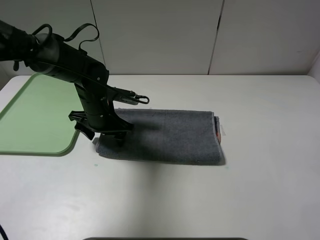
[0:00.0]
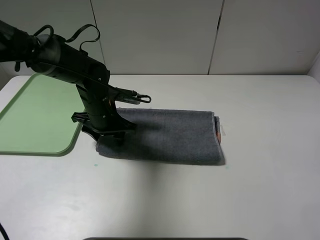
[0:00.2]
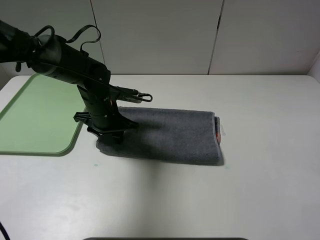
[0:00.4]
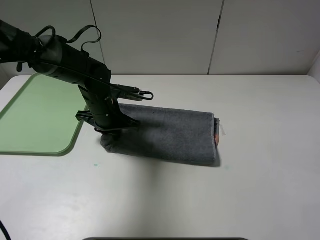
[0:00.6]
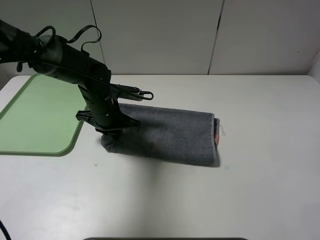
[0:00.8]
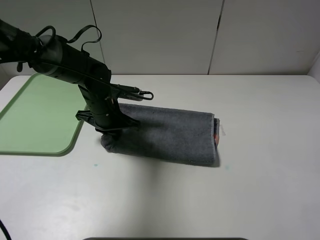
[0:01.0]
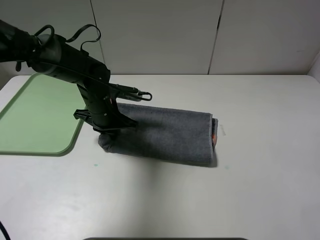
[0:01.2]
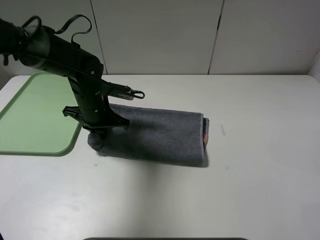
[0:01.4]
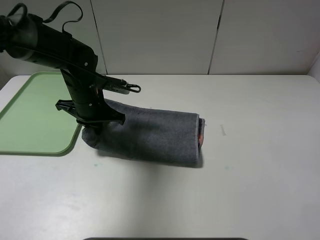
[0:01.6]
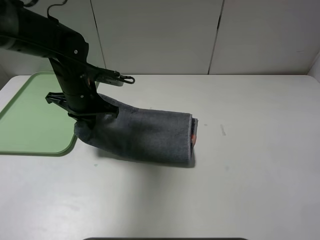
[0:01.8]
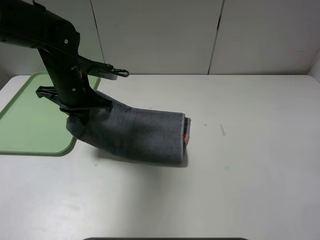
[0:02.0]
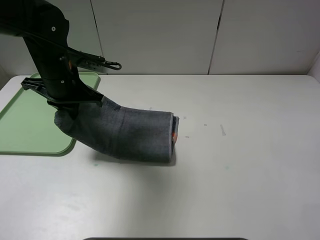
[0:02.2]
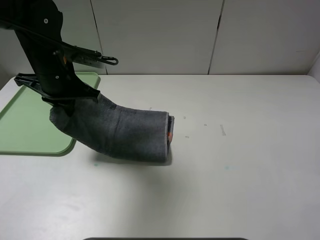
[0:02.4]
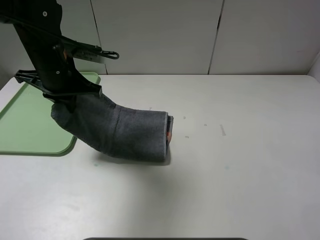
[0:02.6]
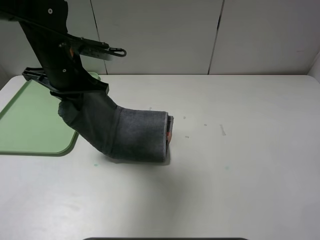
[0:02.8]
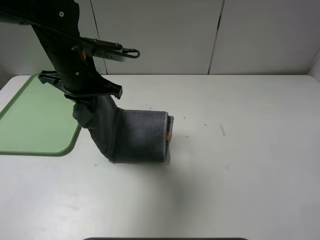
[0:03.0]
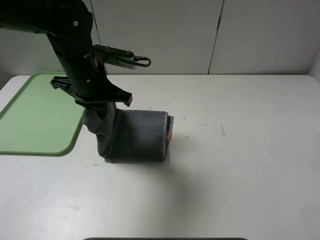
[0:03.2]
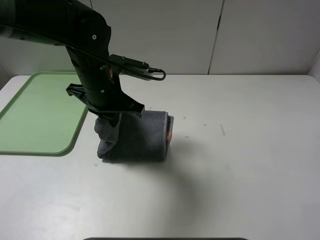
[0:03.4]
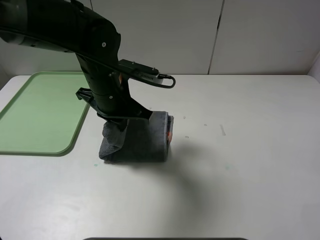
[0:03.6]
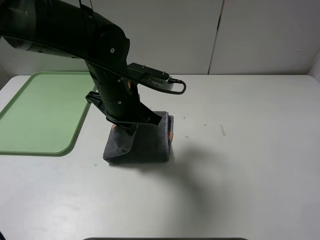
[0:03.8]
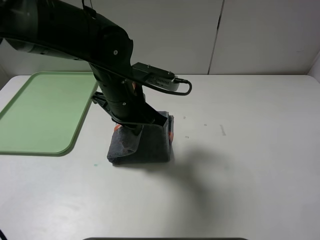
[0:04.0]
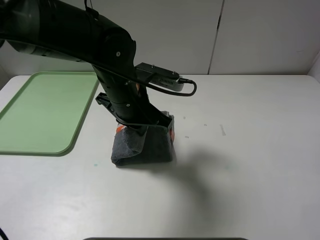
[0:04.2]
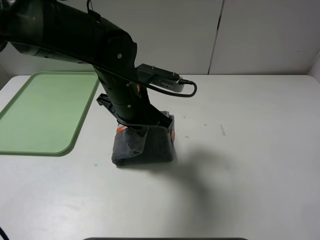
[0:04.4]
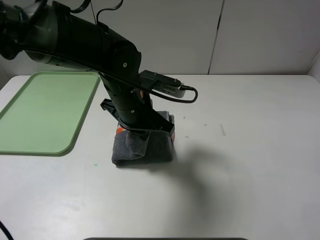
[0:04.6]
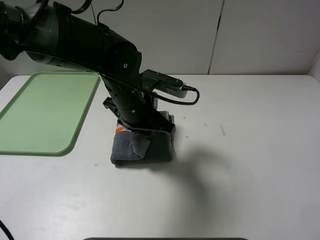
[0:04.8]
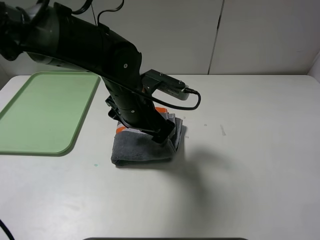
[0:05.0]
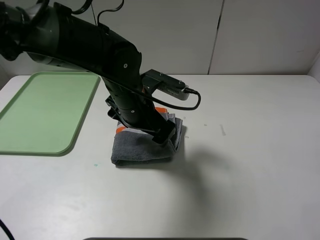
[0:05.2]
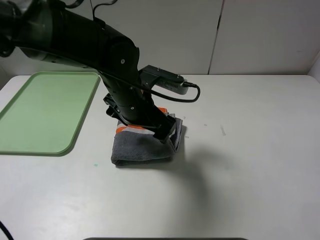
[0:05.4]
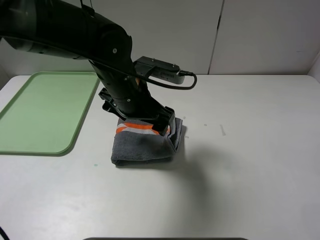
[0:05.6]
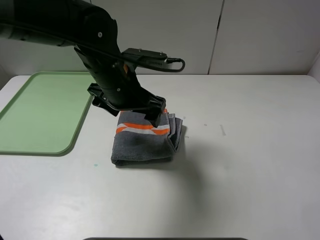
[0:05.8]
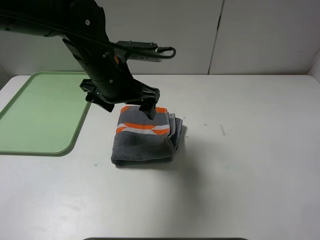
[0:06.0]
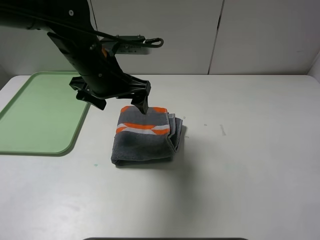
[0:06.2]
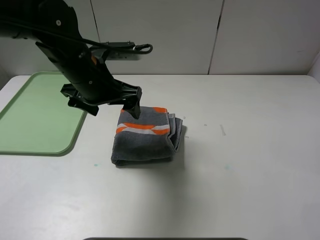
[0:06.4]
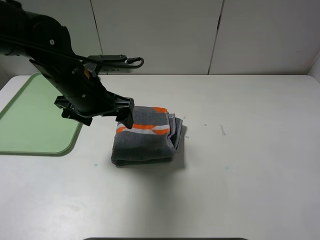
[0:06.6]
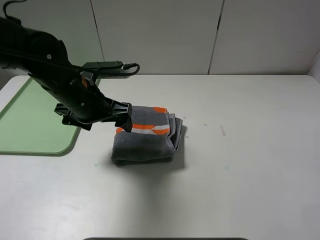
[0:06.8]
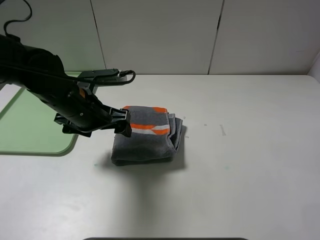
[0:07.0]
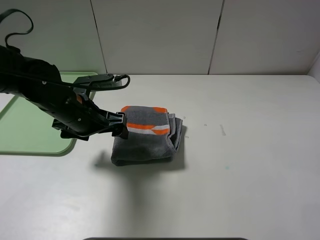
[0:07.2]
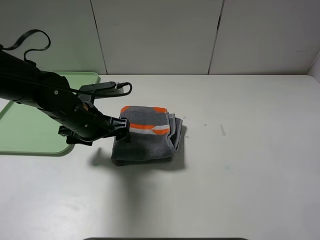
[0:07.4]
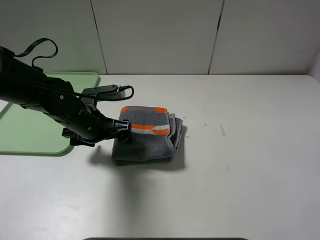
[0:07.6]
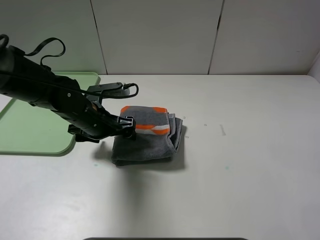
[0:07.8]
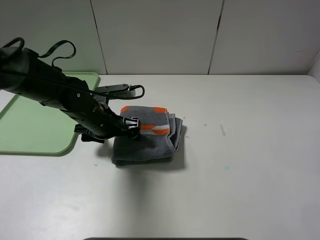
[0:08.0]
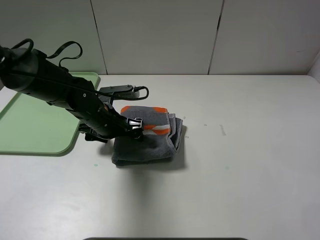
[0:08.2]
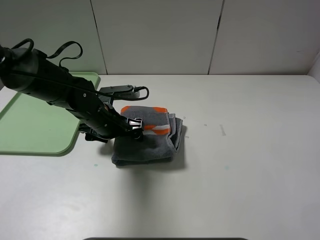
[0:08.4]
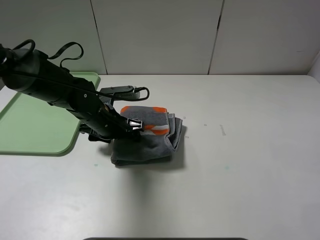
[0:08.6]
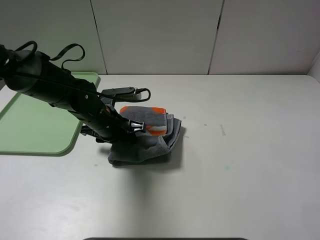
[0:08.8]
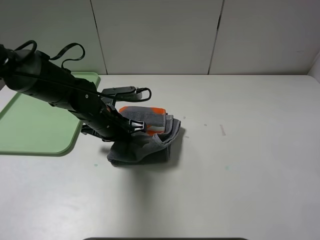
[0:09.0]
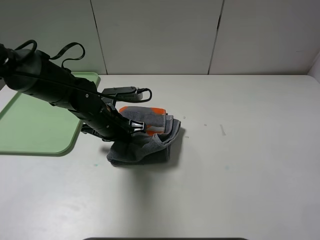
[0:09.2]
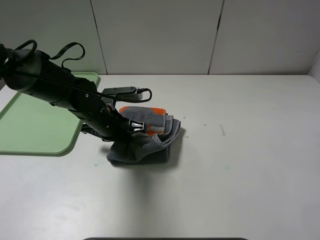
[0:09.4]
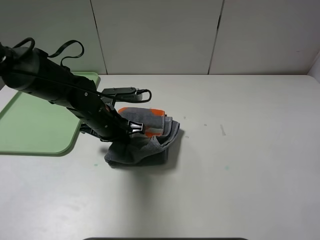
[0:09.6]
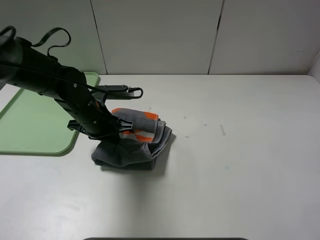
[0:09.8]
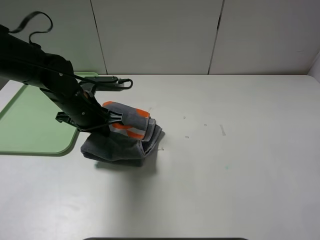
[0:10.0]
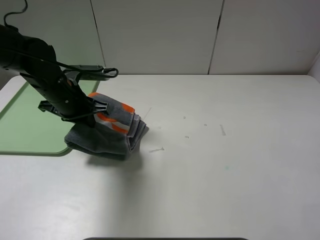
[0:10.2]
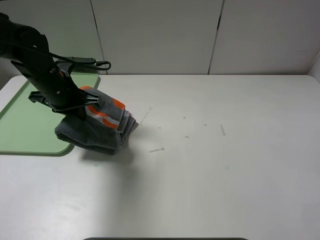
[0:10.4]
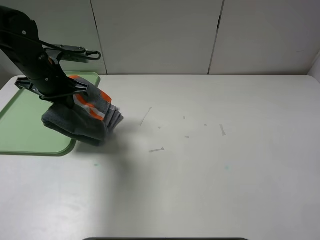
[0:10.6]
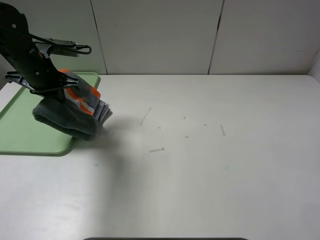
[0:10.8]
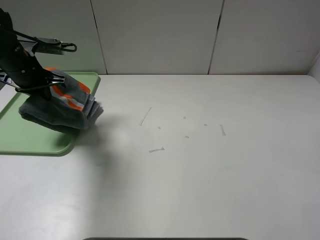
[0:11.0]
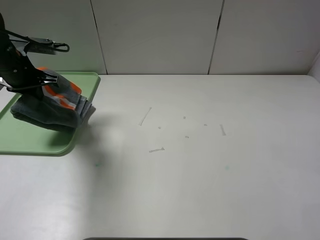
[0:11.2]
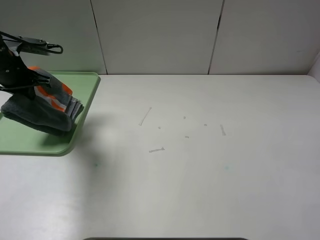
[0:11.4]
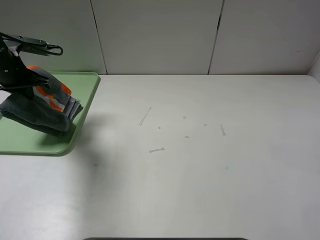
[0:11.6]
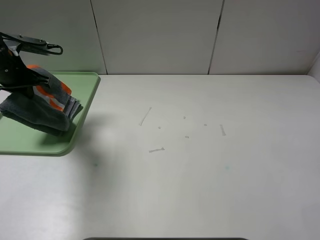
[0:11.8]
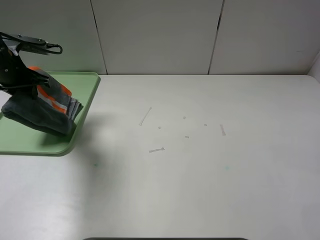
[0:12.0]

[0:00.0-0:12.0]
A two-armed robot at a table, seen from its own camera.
Step, 0:00.0 to 0:05.4: Fold the grey towel from left to right with left gripper.
Step, 0:05.6 to 0:12.0: Place the folded grey towel on the tray with the left gripper.
0:00.0 to 0:01.6: The left gripper closes up.
0:01.6 to 0:03.0: The left gripper goes some 10 cm upward.
0:03.0 to 0:04.4: The left gripper goes some 10 cm to the right.
0:04.4 to 0:06.0: The left gripper shifts by about 5 cm, and opens.
0:06.0 to 0:07.6: The left gripper travels downward and to the left by approximately 10 cm.
0:07.6 to 0:09.0: The left gripper closes.
0:09.0 to 0:10.4: The left gripper moves to the left and upward, approximately 10 cm.
0:10.4 to 0:12.0: The left gripper travels to the left by about 10 cm.

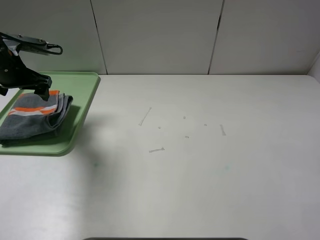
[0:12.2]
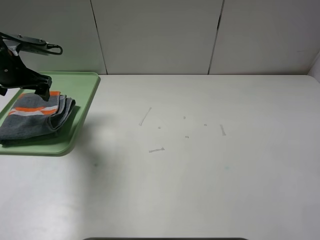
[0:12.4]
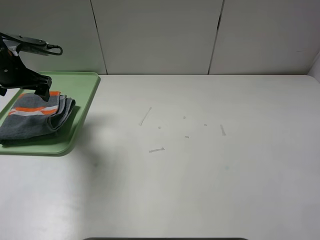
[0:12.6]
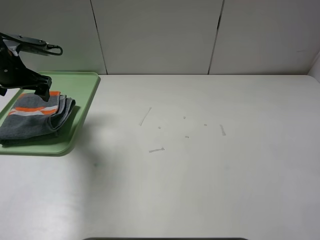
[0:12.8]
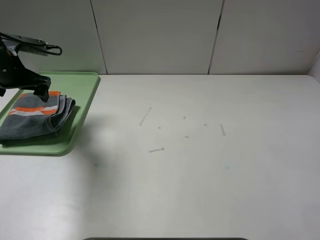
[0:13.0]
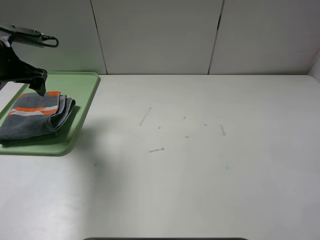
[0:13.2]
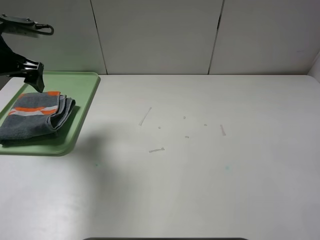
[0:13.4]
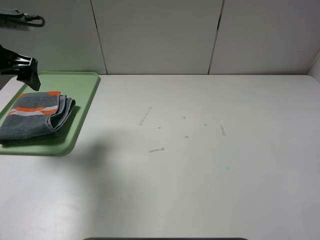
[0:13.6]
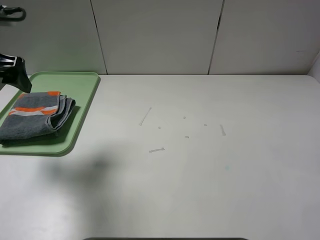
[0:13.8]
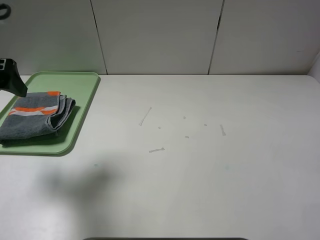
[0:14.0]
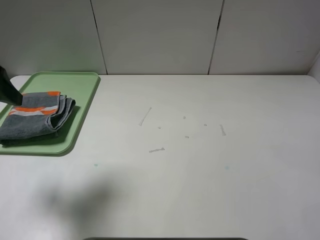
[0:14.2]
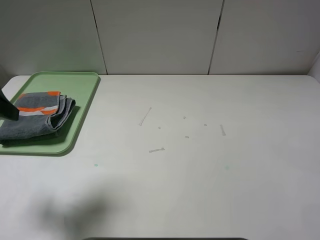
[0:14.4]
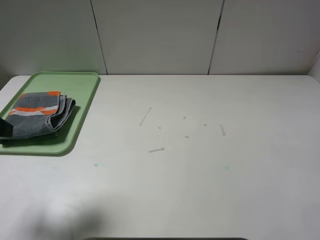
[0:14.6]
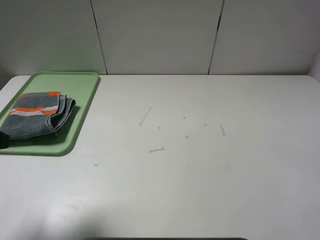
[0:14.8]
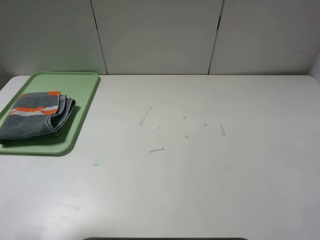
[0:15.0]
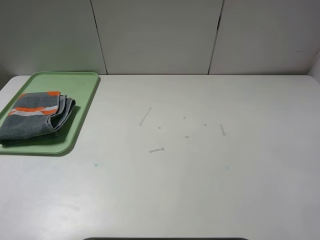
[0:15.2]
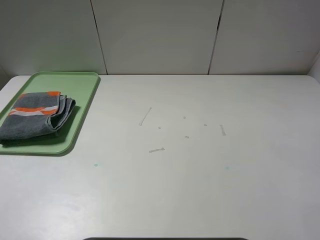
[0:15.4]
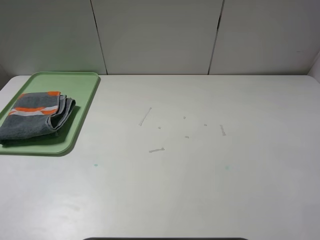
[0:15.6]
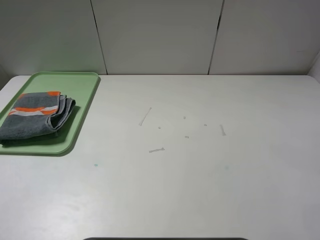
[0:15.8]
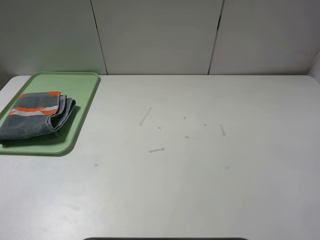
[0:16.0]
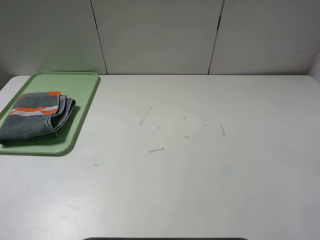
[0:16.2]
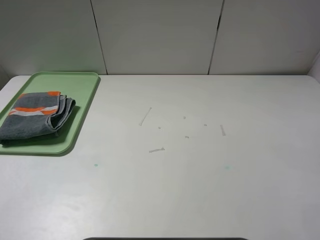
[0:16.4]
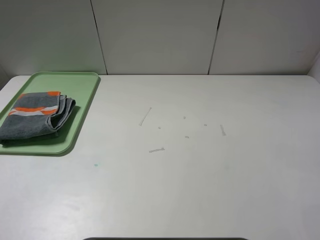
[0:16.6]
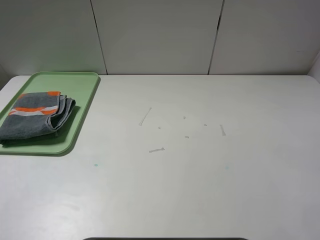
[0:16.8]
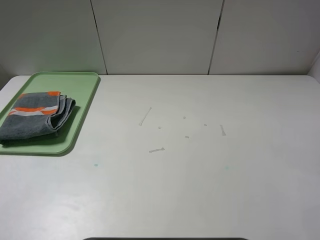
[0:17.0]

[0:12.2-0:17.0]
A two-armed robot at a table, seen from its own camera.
0:12.2 to 0:13.8: The left gripper goes roughly 15 cm backward and upward.
0:13.8 to 0:15.4: The left gripper is displaced backward by roughly 20 cm.
